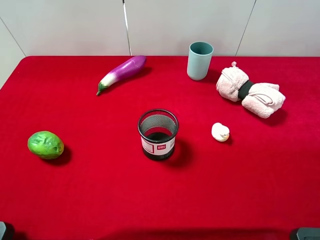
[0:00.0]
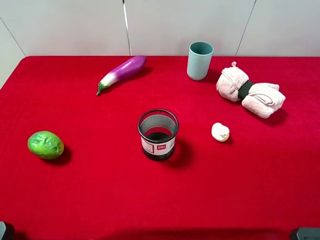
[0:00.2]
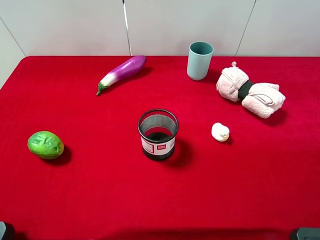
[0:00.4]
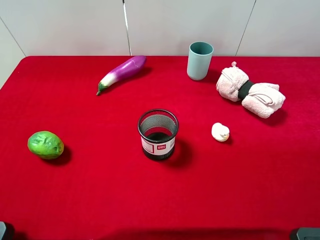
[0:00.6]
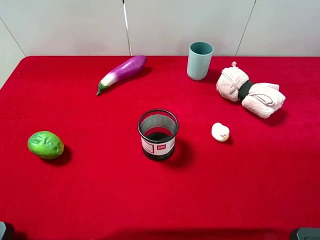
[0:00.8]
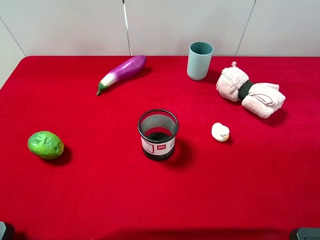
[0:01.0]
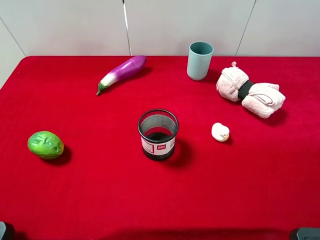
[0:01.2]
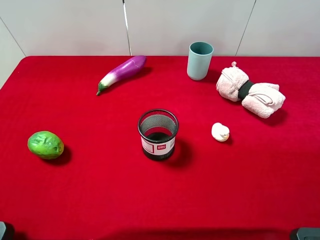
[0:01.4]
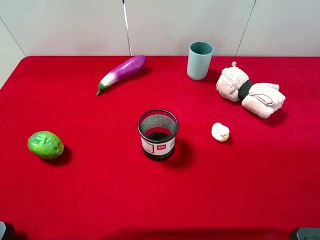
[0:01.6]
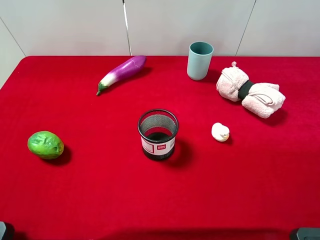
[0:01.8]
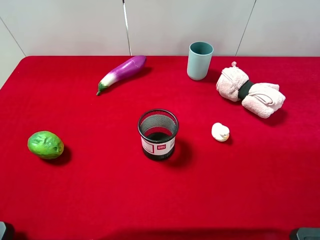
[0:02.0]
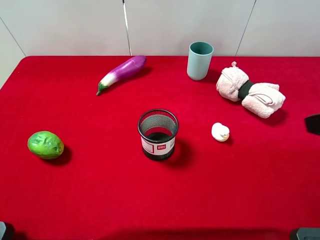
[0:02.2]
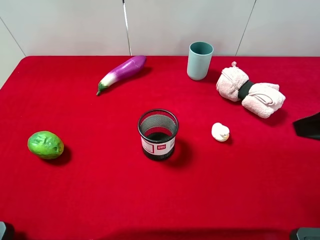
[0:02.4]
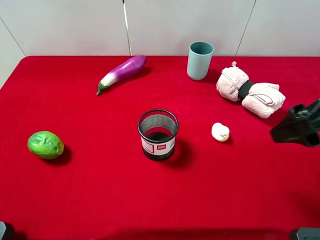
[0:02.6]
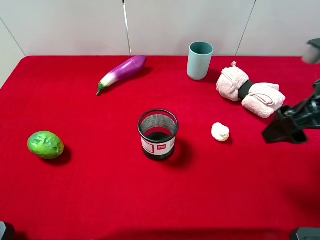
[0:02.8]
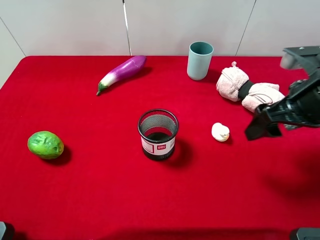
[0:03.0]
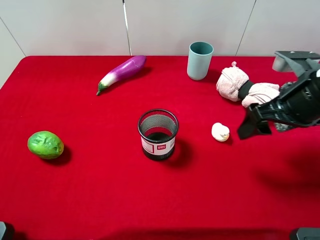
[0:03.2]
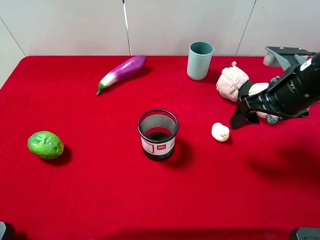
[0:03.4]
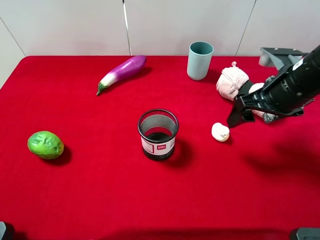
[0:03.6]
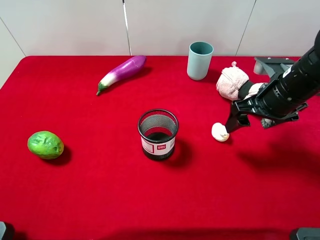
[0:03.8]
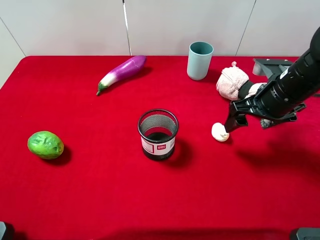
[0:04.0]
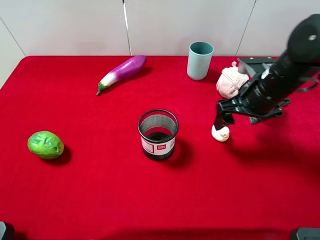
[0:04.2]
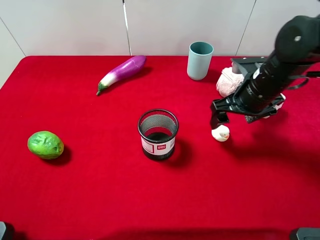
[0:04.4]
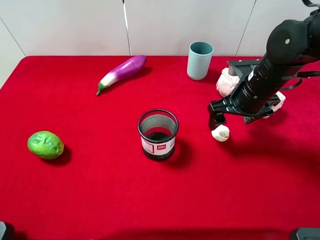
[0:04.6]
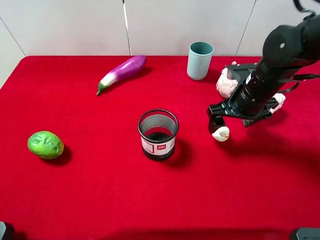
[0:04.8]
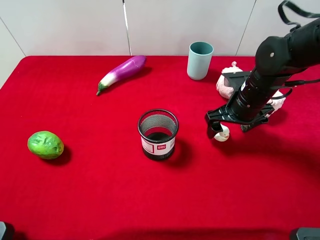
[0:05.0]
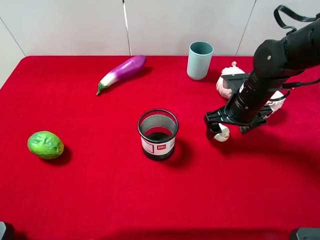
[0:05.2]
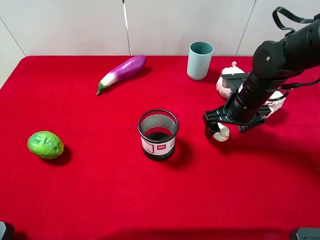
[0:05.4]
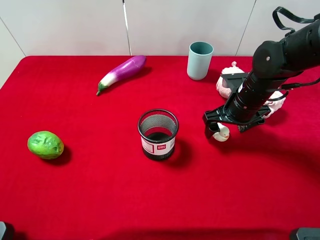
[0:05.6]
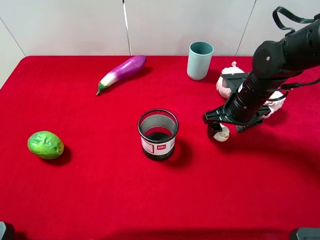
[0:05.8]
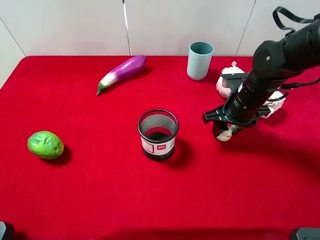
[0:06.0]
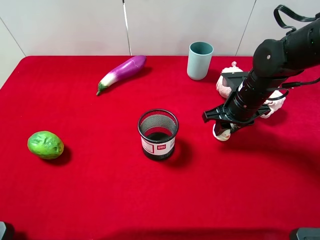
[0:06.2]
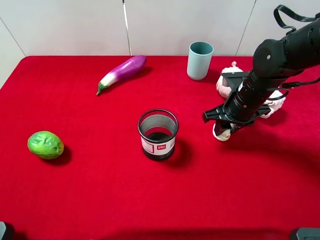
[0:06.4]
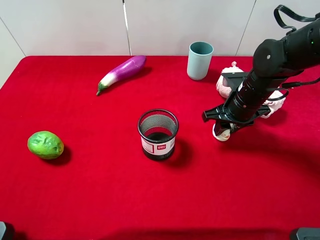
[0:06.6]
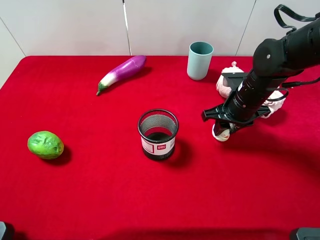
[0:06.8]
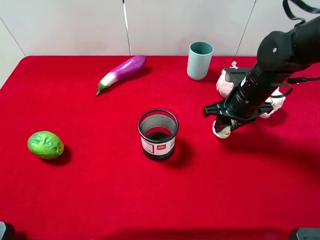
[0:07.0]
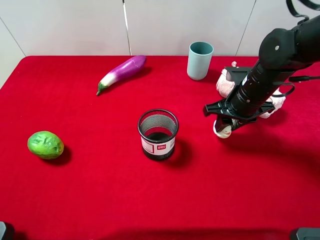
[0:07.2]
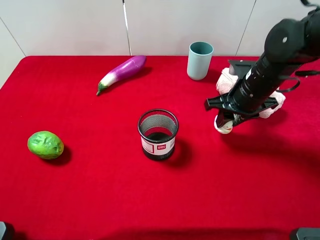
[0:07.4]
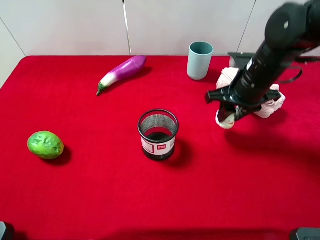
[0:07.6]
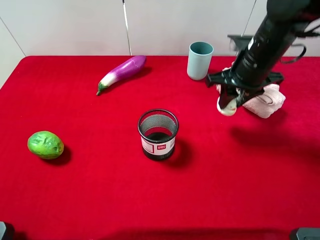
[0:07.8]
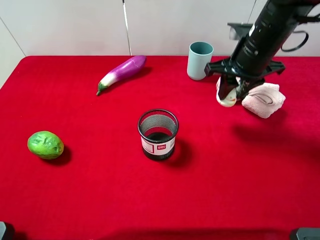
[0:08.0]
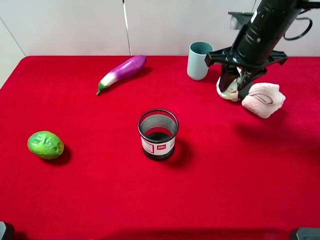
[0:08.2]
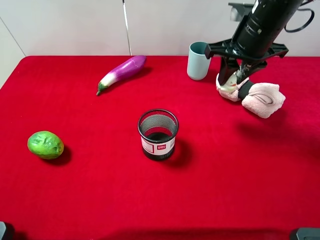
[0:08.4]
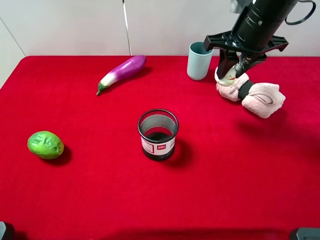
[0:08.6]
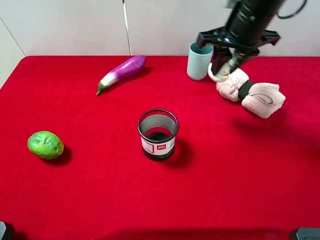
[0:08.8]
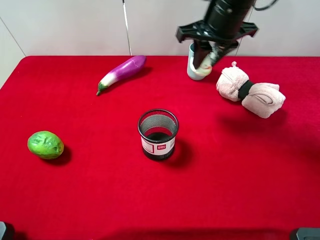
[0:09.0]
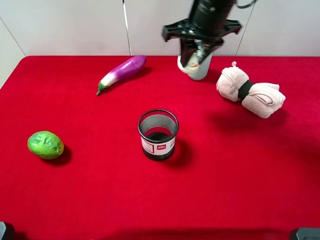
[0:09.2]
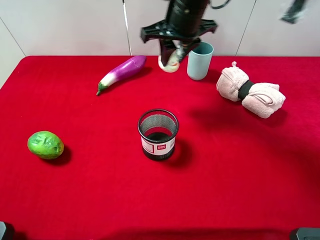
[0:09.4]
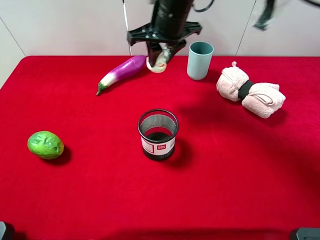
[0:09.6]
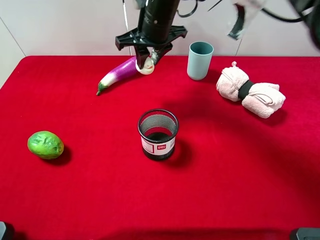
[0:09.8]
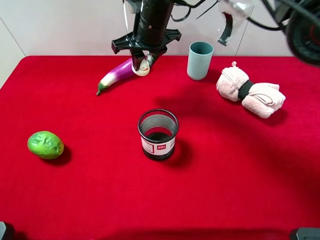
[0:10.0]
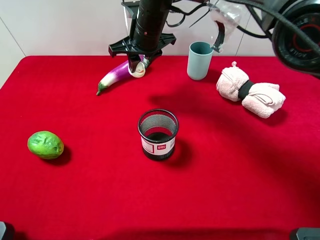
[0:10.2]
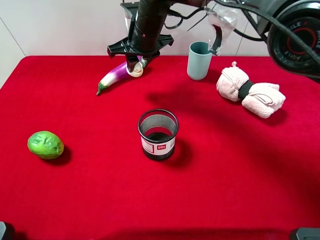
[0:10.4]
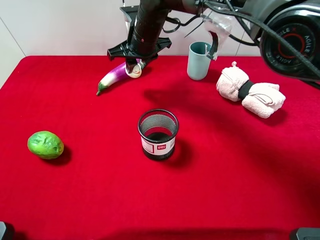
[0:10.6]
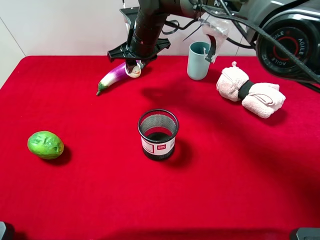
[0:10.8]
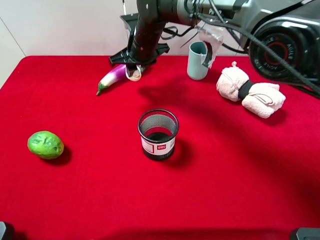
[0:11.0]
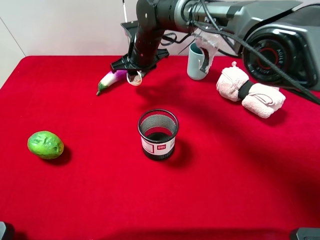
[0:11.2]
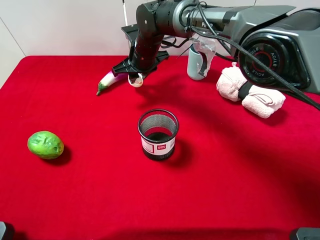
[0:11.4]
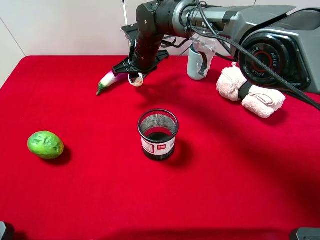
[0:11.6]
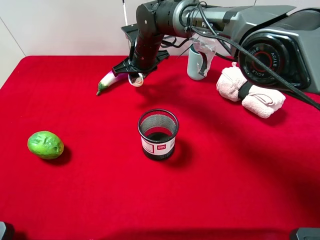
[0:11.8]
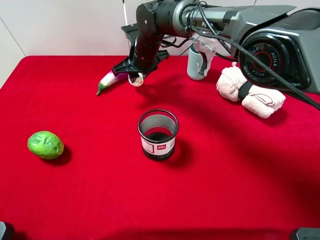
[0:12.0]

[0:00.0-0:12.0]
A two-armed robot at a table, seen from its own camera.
Task of the whole recording: the gripper move the object.
Step, 0.0 to 6.4 s: Grasp the white duck with the right gripper.
1.6 to 3.0 s: The right gripper heads forward and downward, covering approximately 20 cm.
3.0 to 4.4 s: The right gripper shifts roughly 10 cm forward and downward.
4.4 to 6.0 s: The right gripper closes its fingers.
6.0 to 7.6 s: The right gripper shifts some 5 cm upward.
7.6 to 9.0 s: The right gripper travels upward, to the left and forward by some 15 cm.
9.0 to 10.4 s: The right gripper moves to the left, downward and forward, approximately 15 cm.
10.4 to 12.0 s: The right gripper travels downward by some 5 cm.

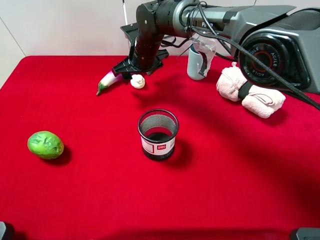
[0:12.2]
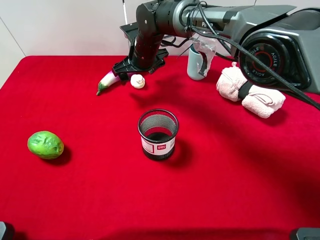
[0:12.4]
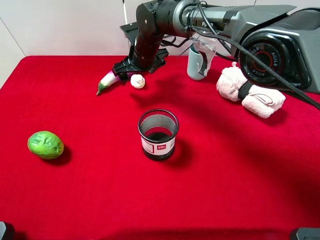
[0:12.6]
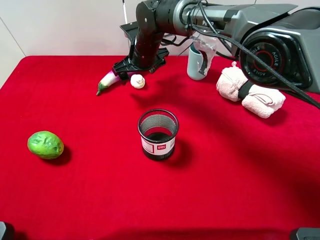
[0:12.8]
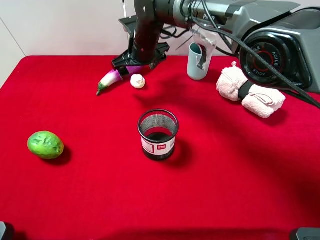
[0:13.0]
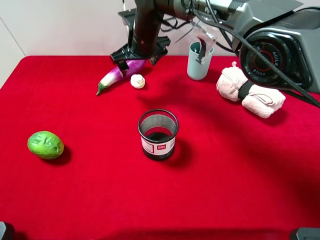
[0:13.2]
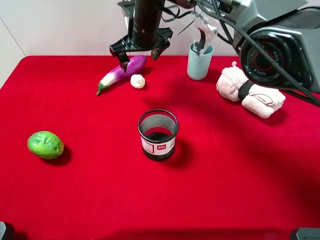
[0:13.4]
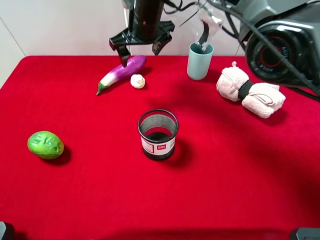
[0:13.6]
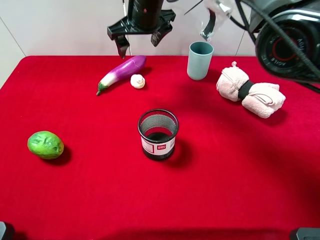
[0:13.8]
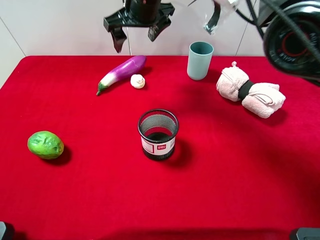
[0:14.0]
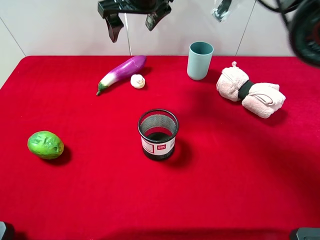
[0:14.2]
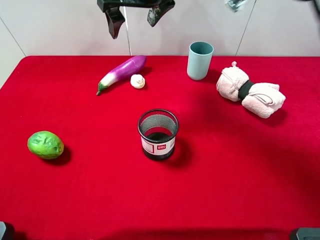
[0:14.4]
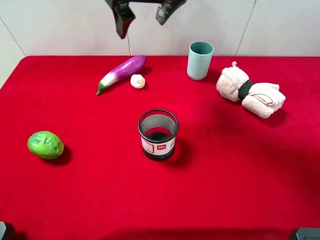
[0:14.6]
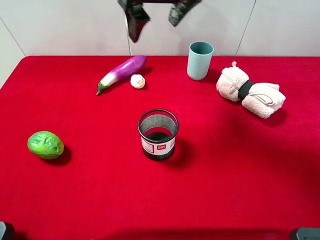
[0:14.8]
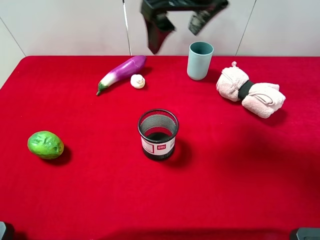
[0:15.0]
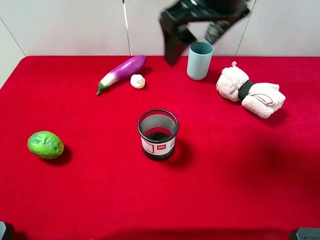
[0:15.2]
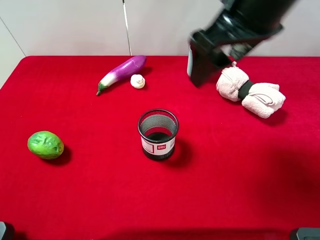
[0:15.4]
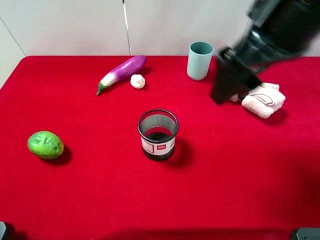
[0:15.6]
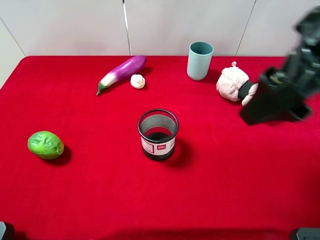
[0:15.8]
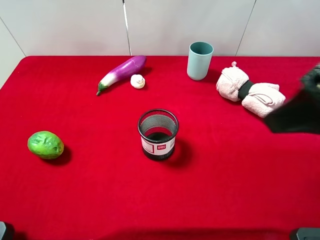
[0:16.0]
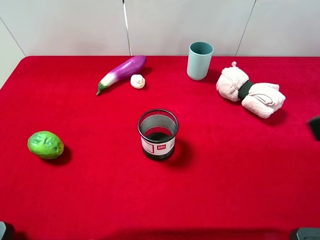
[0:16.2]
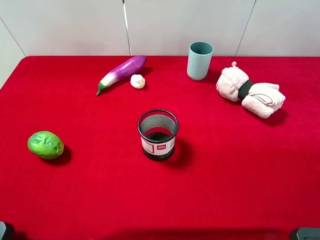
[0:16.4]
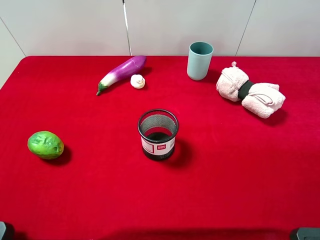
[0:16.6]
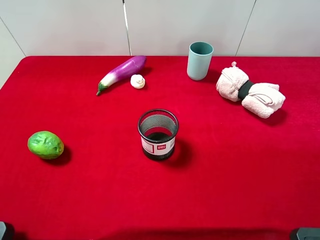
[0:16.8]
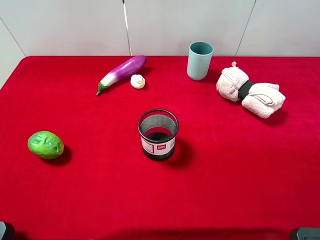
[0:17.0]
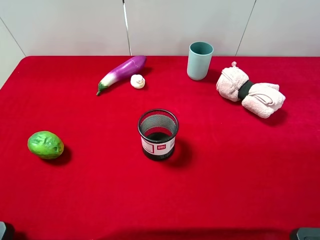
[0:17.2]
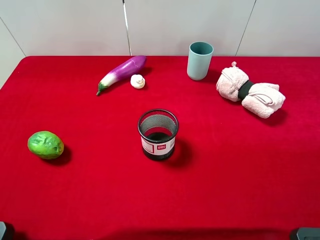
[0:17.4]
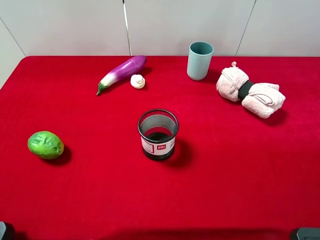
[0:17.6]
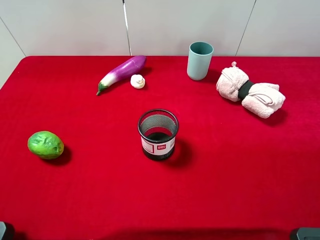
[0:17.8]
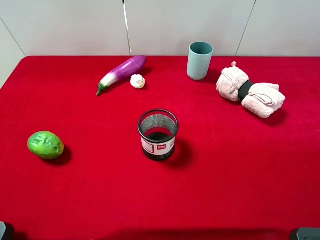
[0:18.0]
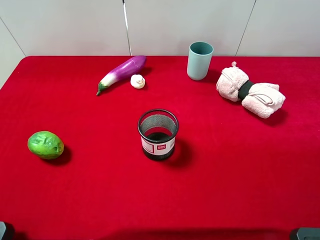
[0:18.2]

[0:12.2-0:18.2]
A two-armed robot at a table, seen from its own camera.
Task of the whole recording: the gripper move the object.
12.2 to 13.8 s: The right gripper heads upward, covering some 10 cm.
13.8 to 15.2 s: The right gripper heads backward, to the right and upward, covering some 20 cm.
15.2 to 16.6 s: The right gripper goes some 30 cm backward and to the right.

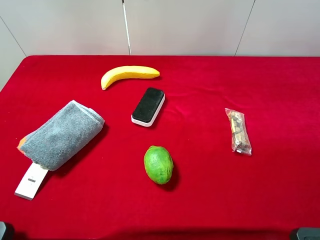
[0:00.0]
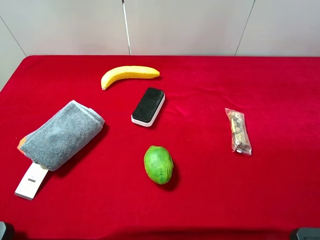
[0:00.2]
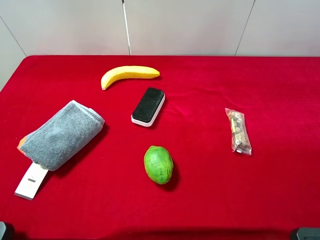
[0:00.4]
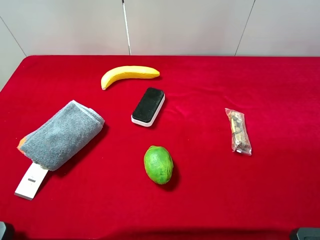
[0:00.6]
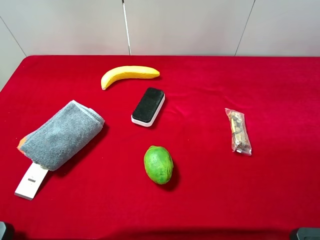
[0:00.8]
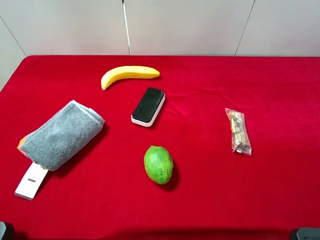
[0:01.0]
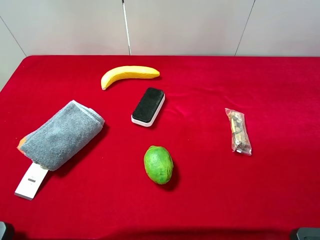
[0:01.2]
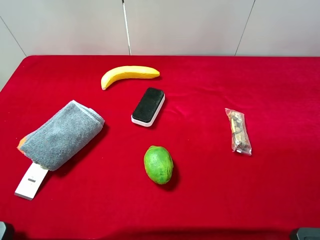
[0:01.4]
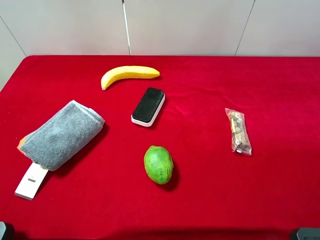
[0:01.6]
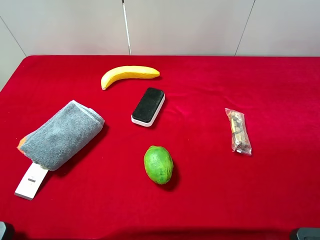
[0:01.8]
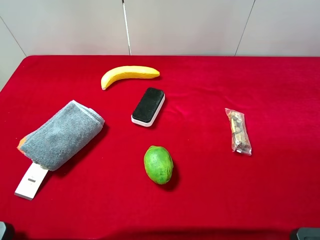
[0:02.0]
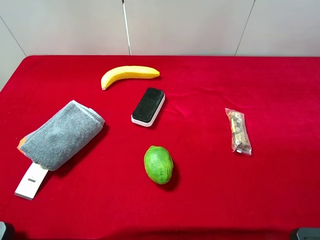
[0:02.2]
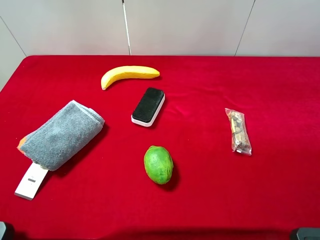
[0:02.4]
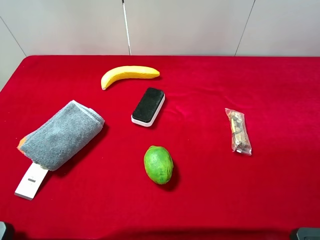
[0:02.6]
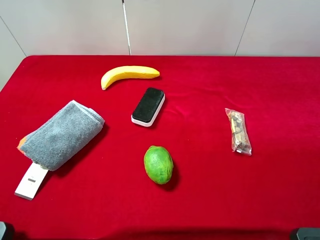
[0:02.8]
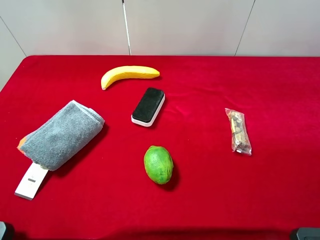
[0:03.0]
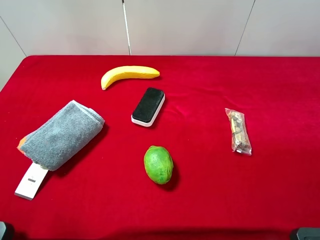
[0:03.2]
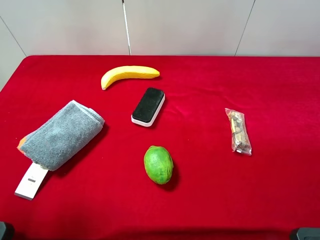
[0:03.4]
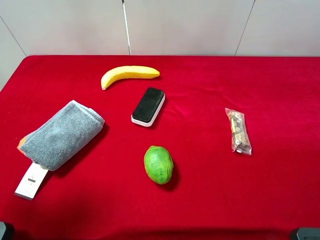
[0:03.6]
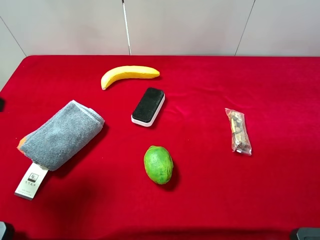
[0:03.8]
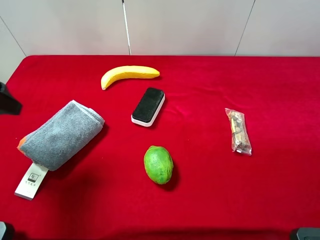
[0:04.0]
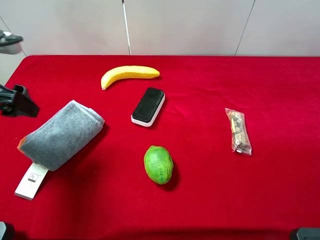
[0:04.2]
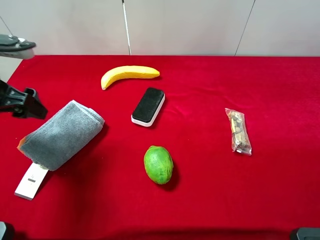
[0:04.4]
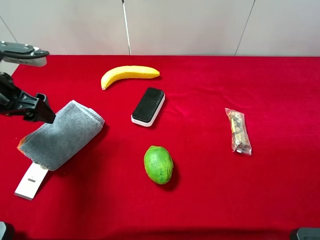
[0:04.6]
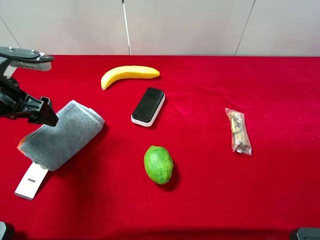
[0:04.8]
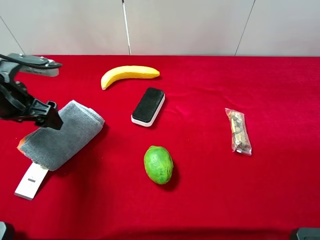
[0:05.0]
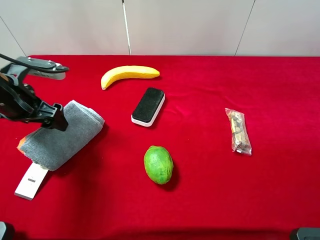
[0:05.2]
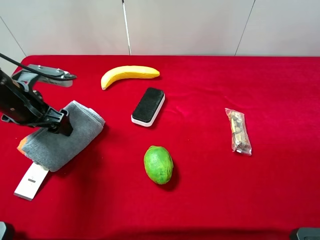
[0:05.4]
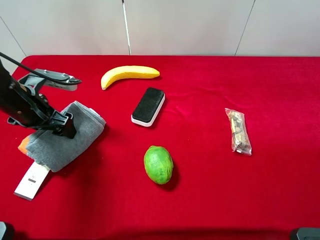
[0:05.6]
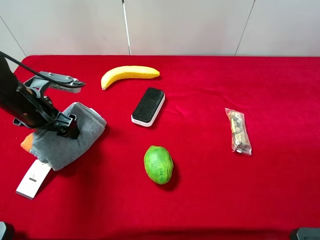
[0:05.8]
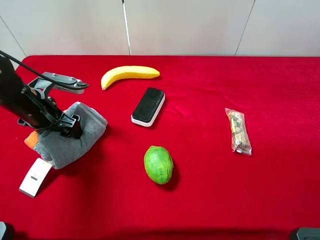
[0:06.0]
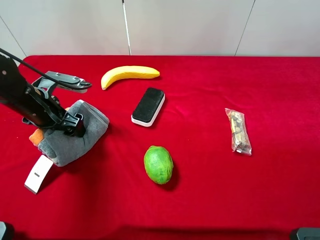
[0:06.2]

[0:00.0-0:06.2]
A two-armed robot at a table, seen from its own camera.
Task of the whole recording: the gripper move the object.
3.2 to 4.6 s: The left gripper is displaced forward and downward by approximately 20 cm.
4.6 to 6.2 s: The left gripper travels downward by about 10 cm.
